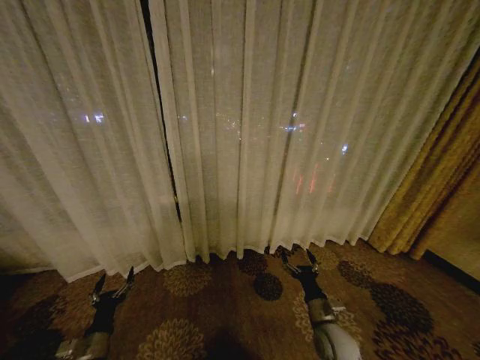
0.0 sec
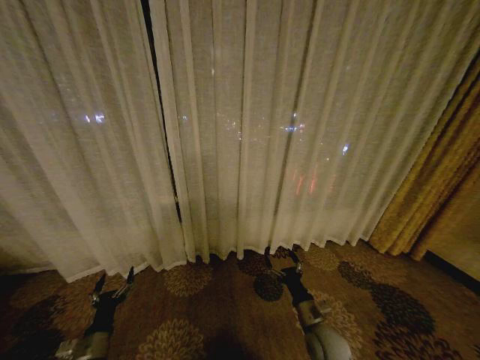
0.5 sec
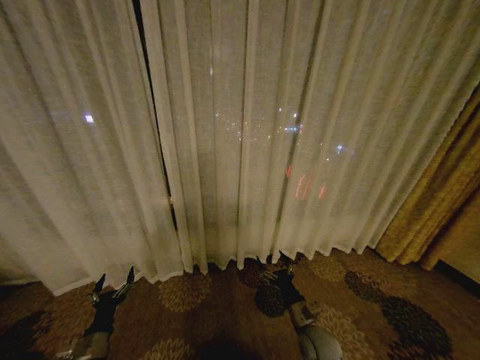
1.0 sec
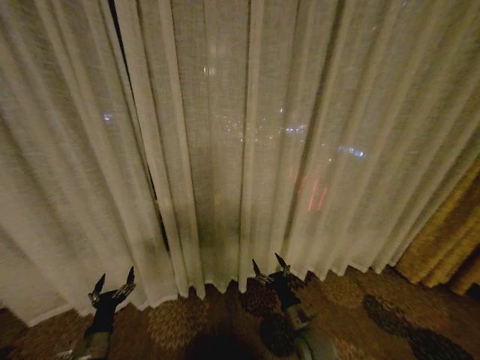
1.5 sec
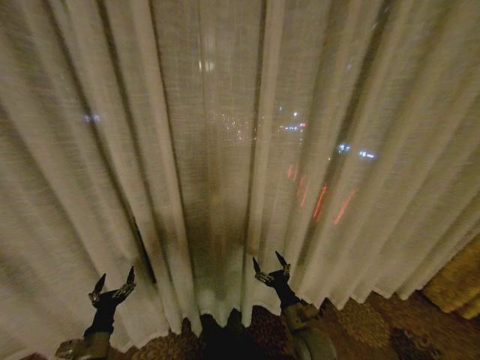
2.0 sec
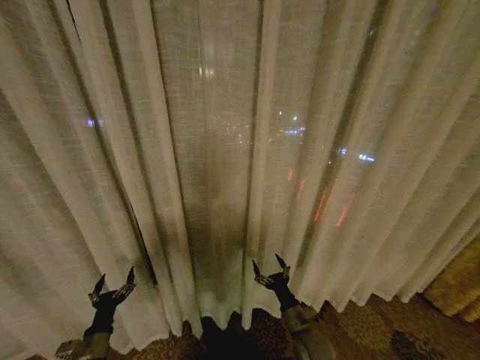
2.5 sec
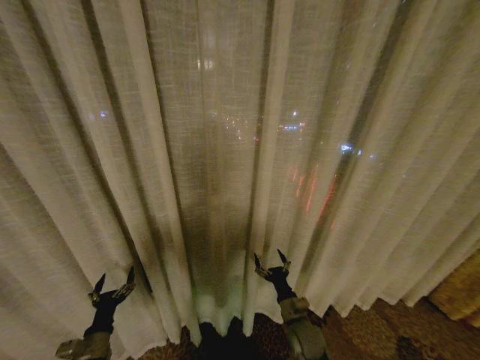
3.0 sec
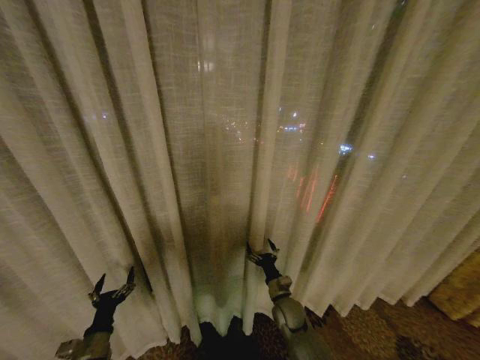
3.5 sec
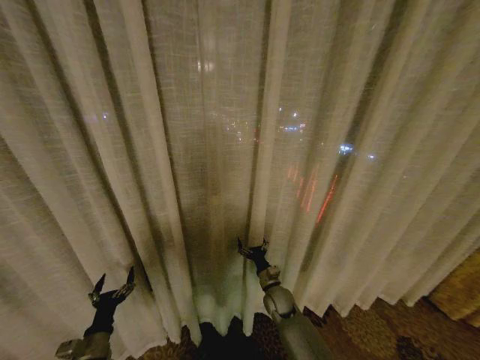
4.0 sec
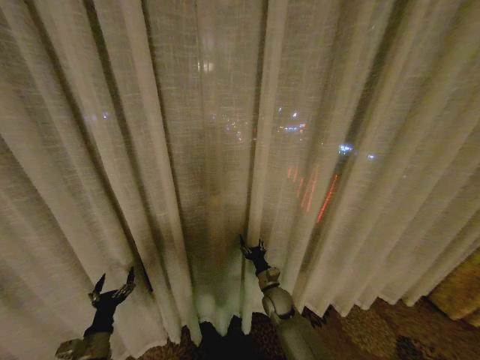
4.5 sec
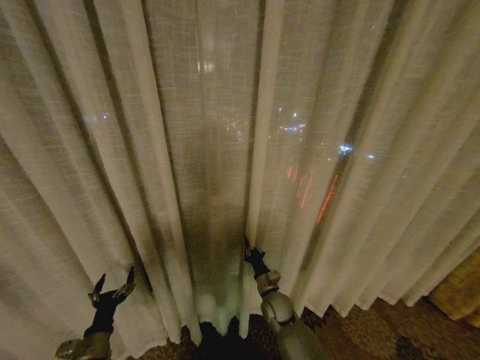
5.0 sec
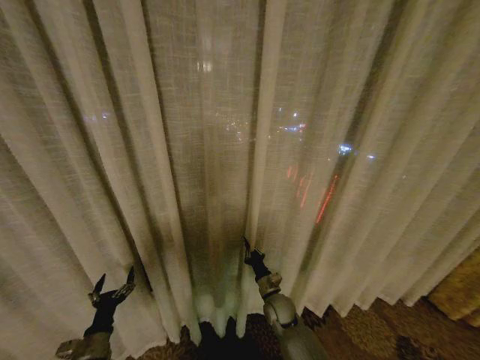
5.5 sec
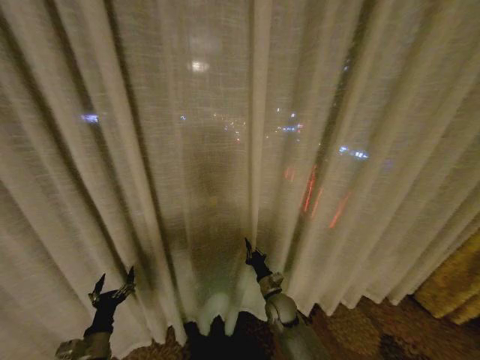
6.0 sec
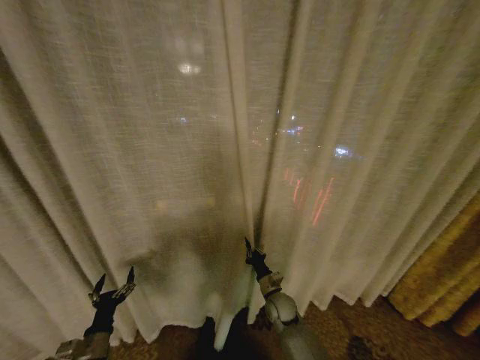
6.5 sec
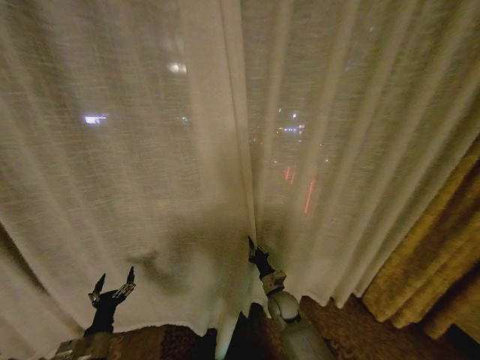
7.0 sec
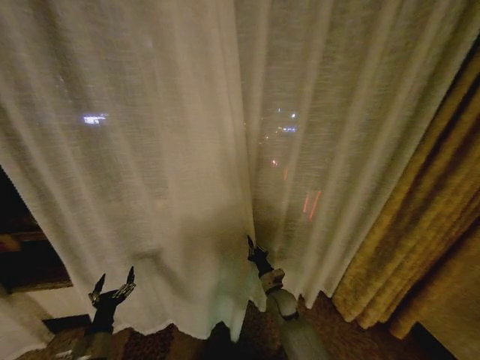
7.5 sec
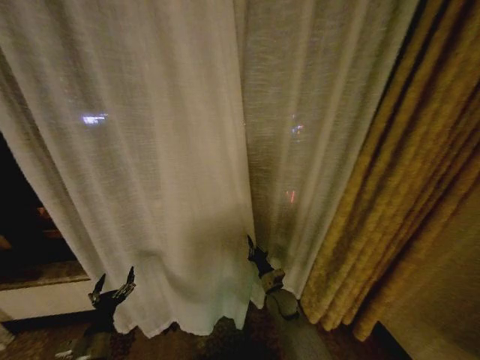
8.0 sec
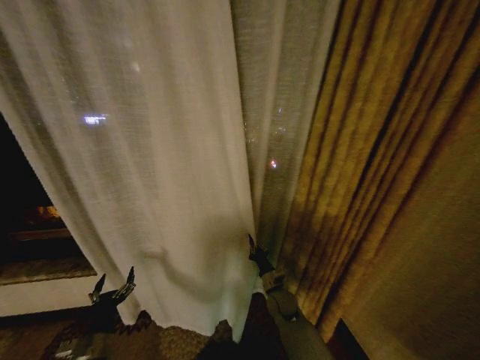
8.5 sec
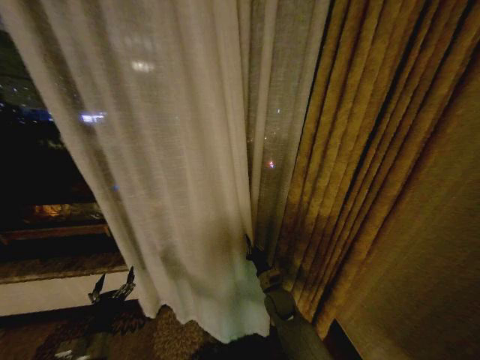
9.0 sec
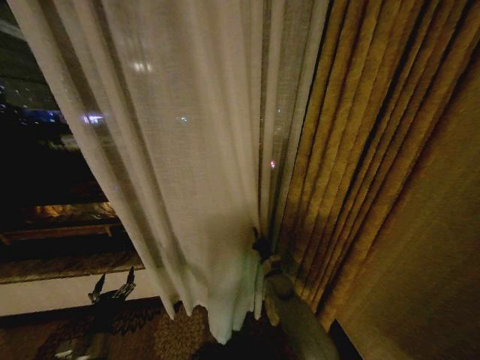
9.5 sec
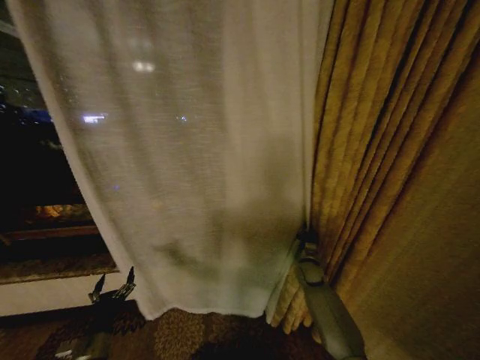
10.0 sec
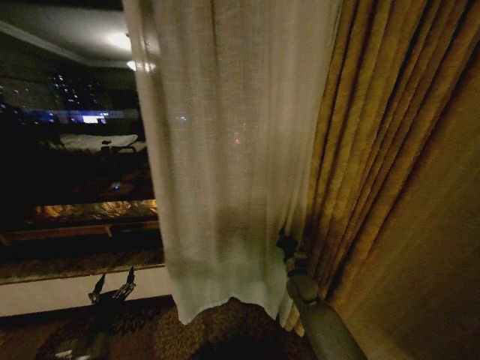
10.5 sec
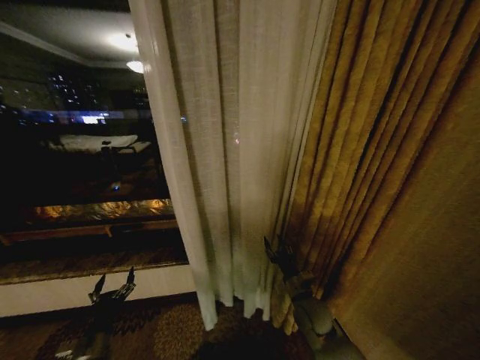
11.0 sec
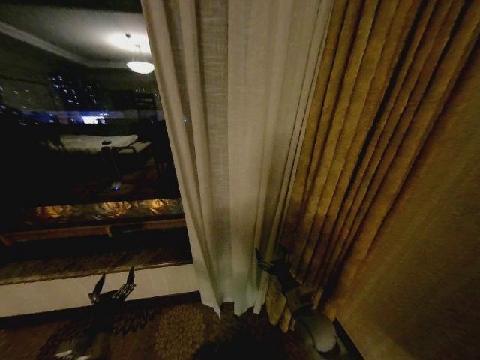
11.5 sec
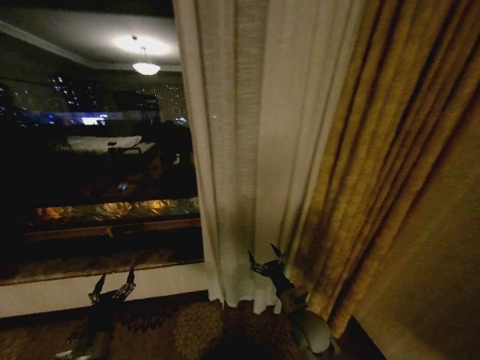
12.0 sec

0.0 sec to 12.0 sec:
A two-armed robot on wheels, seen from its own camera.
Task of the whole recording: Open the curtains by pulling them apart, changing their state from closed to fully open.
2.0 sec to 4.0 sec: The right gripper shifts roughly 15 cm forward and to the left.
4.0 sec to 6.0 sec: The right gripper closes.
8.0 sec to 10.0 sec: The right gripper is displaced to the right and forward by approximately 15 cm.
10.0 sec to 12.0 sec: The right gripper moves backward and to the left, approximately 20 cm, and opens.

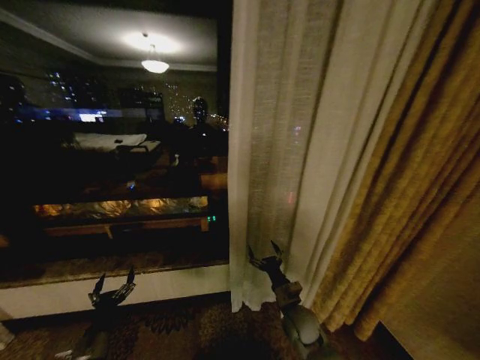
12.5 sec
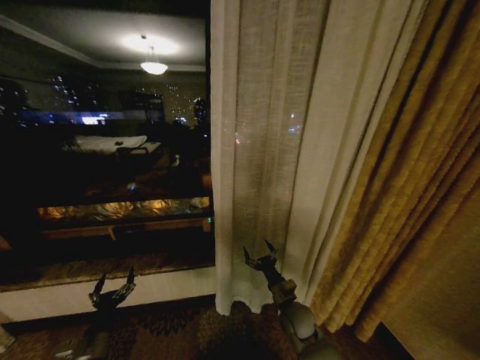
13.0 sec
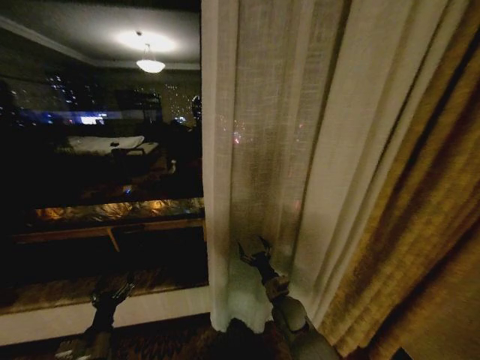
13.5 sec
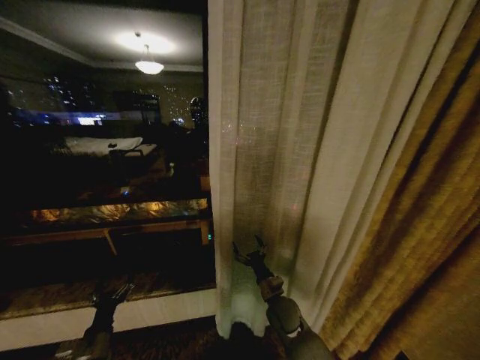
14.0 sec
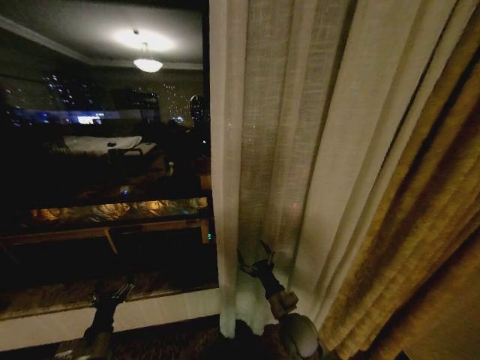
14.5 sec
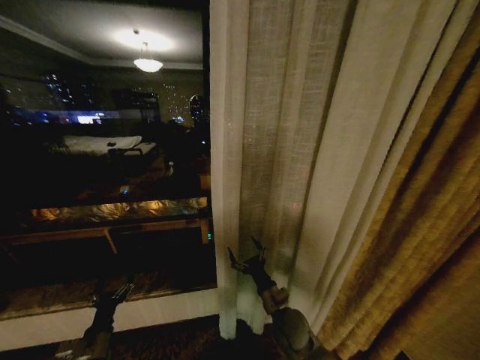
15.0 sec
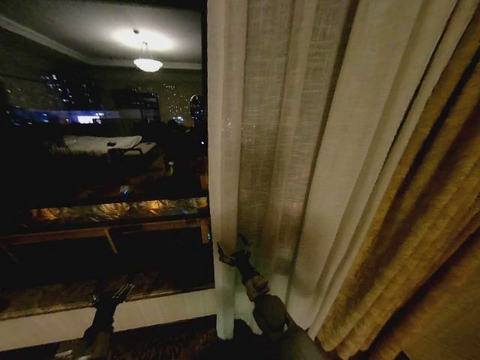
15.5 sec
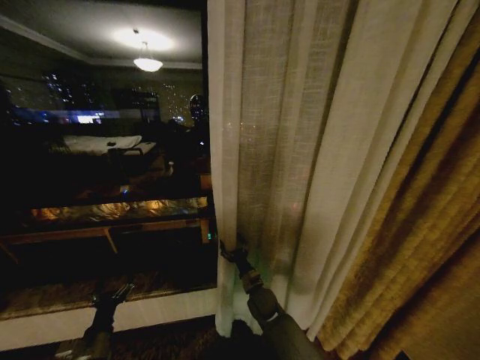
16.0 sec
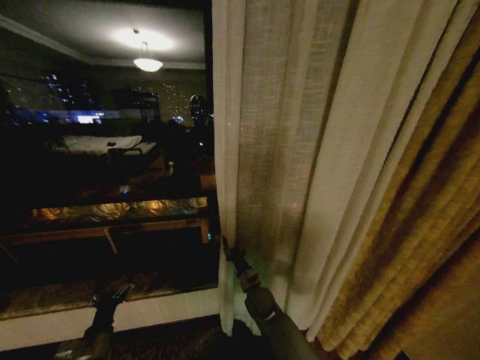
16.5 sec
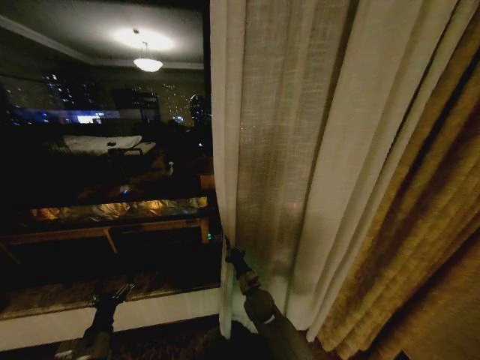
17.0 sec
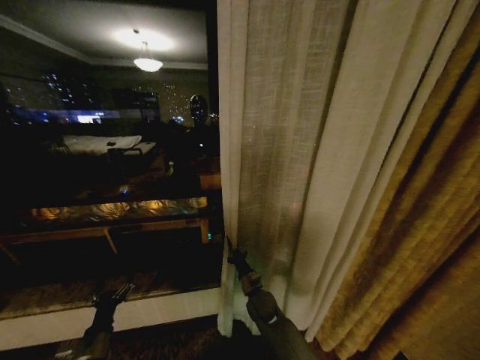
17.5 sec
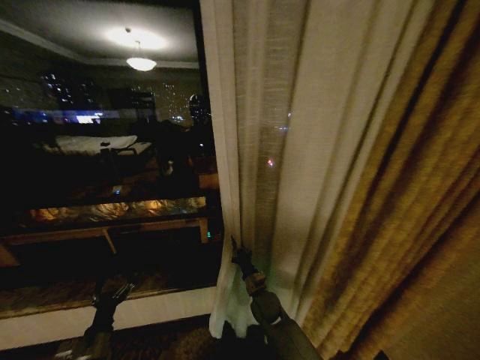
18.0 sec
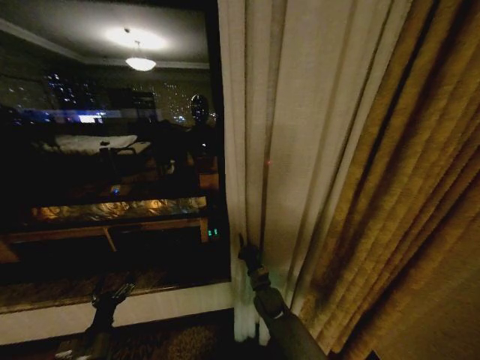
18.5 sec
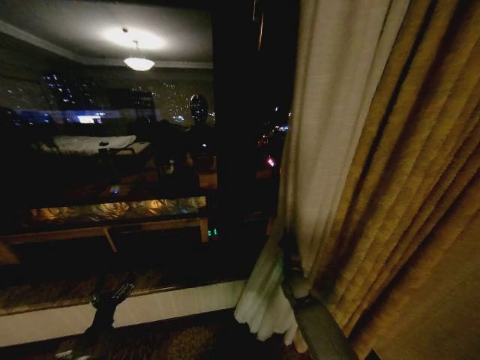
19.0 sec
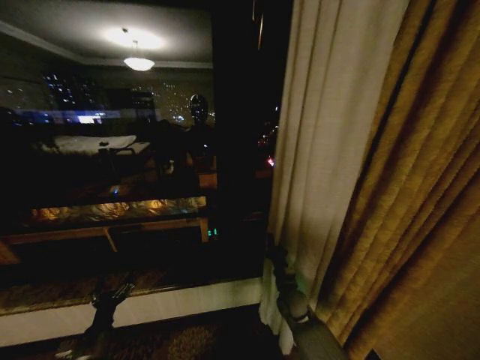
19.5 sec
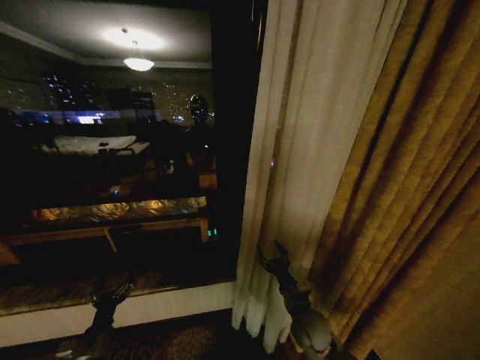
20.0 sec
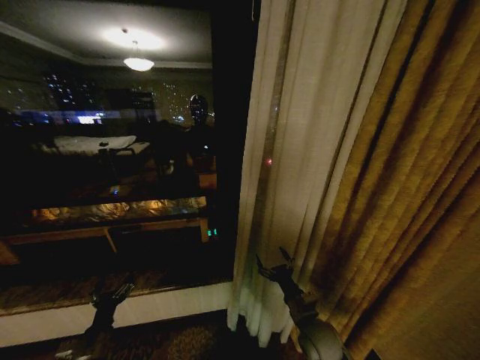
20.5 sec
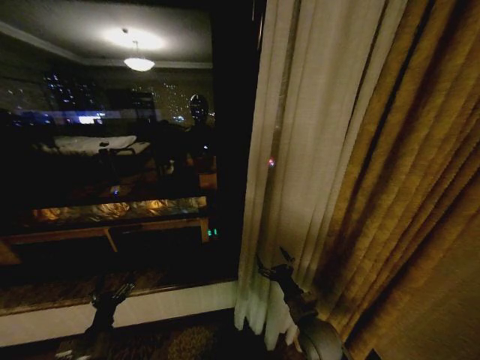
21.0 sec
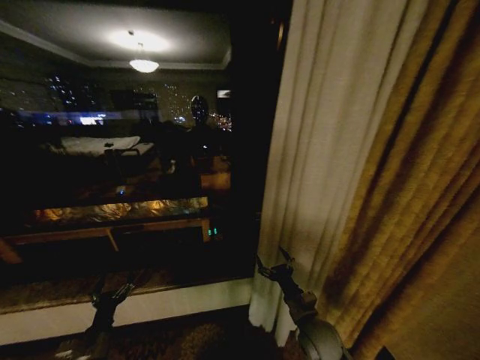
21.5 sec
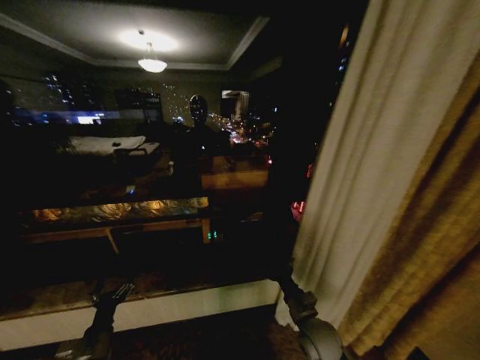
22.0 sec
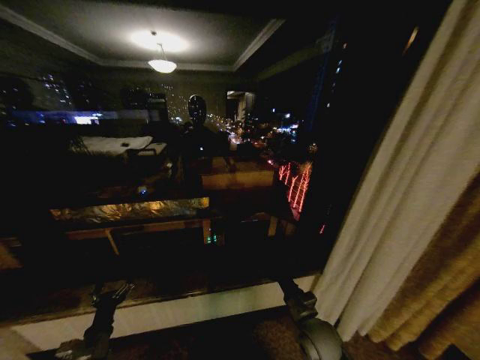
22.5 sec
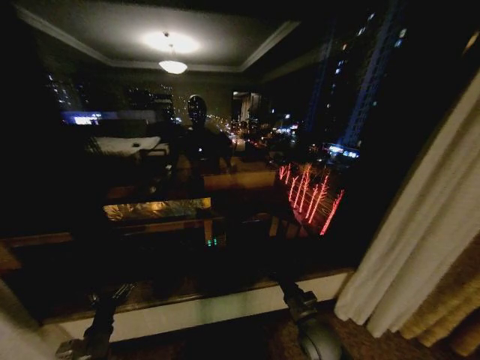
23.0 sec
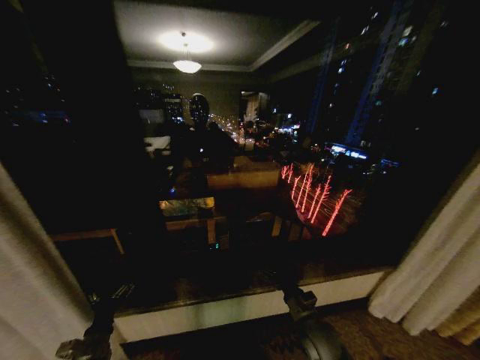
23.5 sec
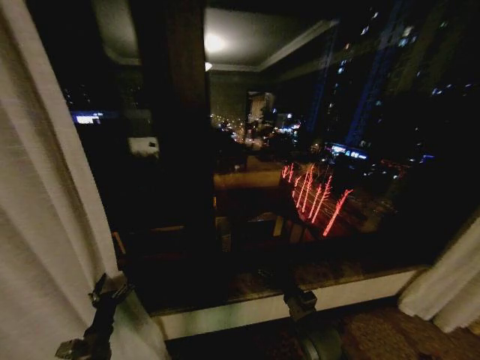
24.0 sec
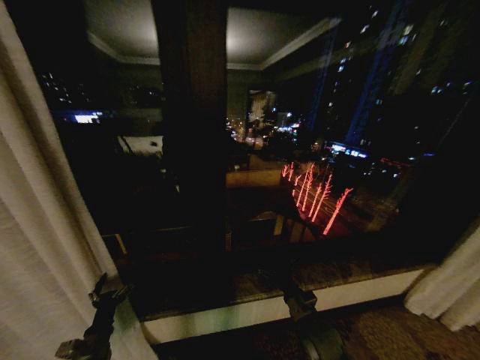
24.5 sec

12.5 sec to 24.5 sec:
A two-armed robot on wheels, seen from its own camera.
Task of the whole recording: Open the curtains by pulling them apart, changing their state from closed to fully open.
14.5 sec to 16.5 sec: The right gripper heads forward, to the left and downward, covering some 15 cm, and closes.
16.5 sec to 18.5 sec: The right gripper closes up.
18.5 sec to 20.5 sec: The right gripper moves backward, to the right and upward, approximately 15 cm, and opens its fingers.

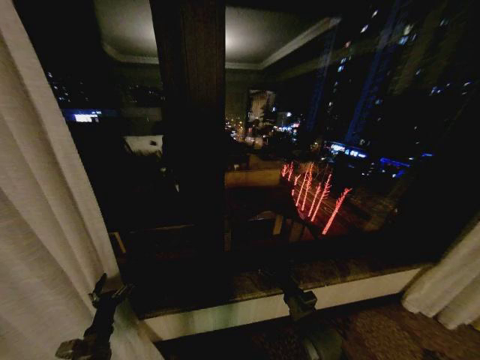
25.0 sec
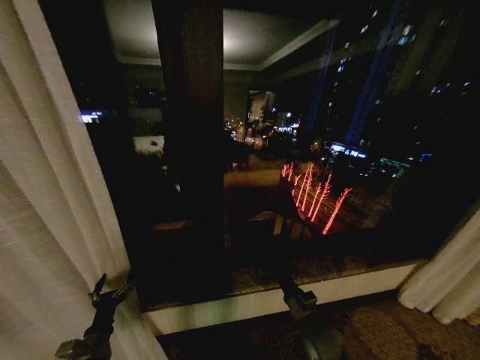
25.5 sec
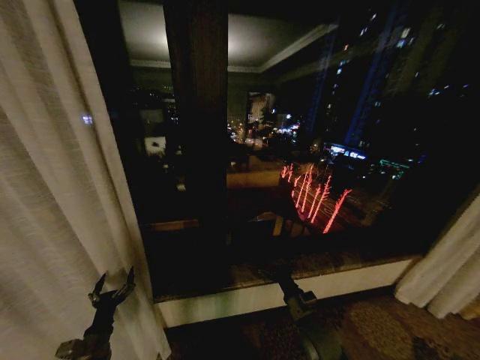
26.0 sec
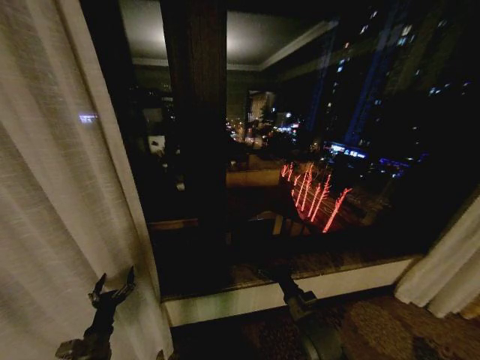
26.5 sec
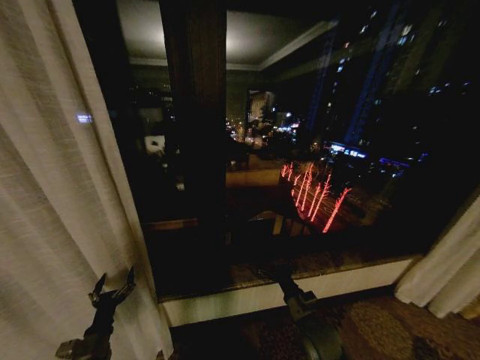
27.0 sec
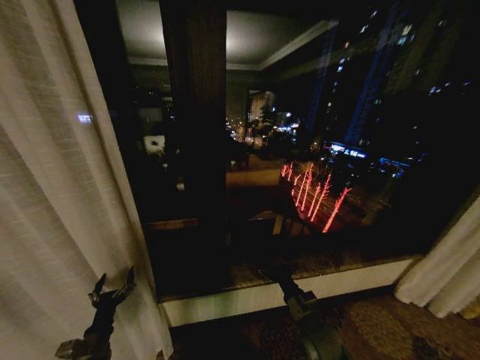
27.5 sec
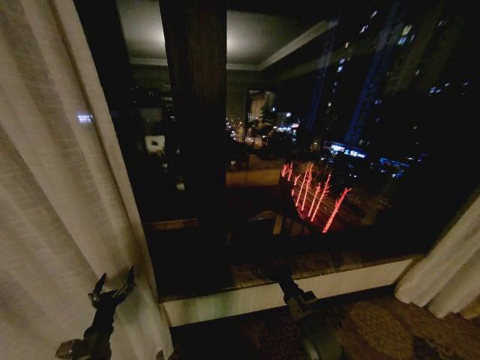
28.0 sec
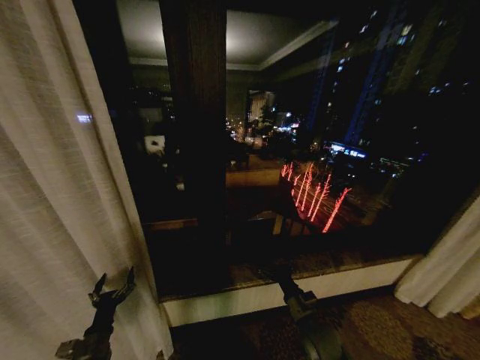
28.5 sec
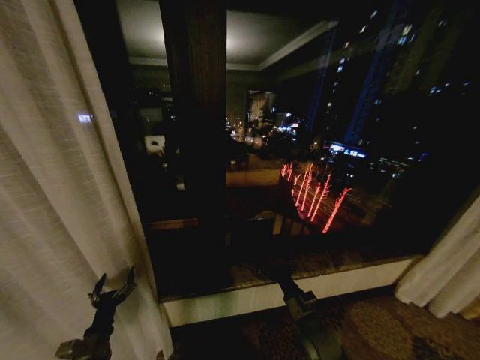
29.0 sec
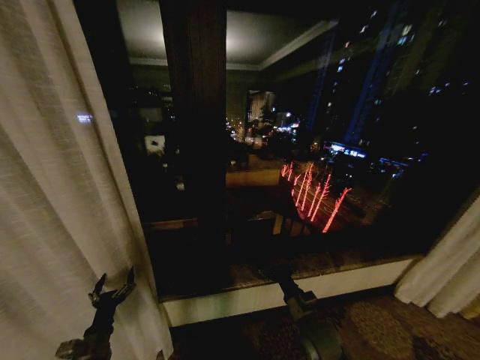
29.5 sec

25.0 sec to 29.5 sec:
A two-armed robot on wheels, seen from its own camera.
Task of the whole recording: Open the curtains by pulling them apart, changing their state from closed to fully open.
27.0 sec to 29.5 sec: Both grippers stay about where they are.
